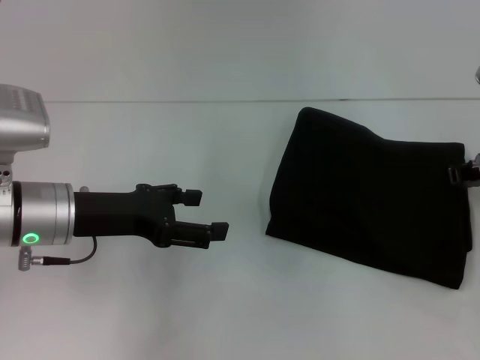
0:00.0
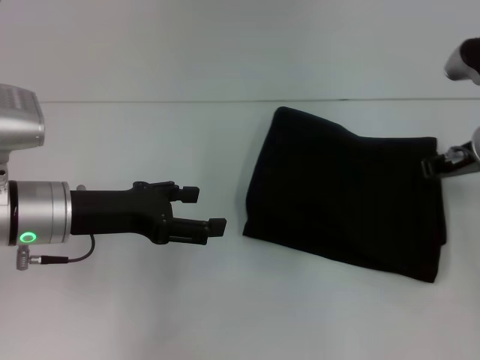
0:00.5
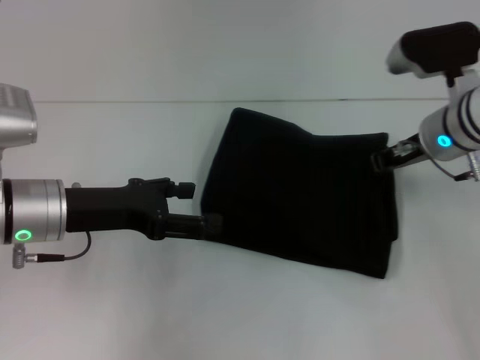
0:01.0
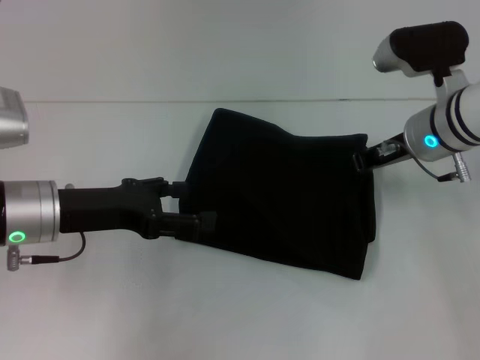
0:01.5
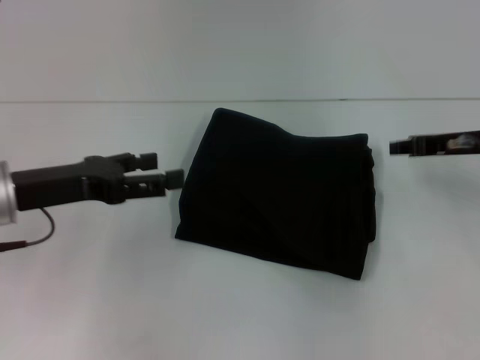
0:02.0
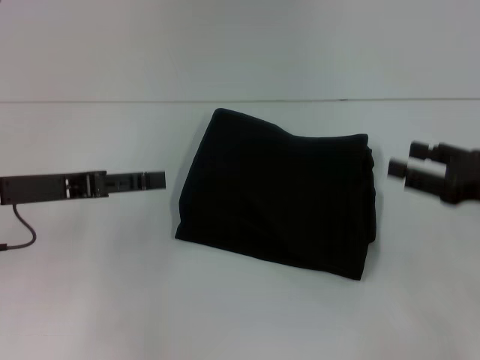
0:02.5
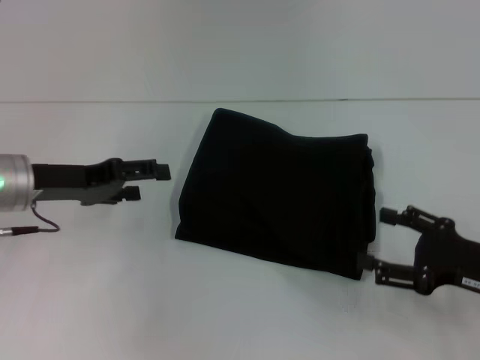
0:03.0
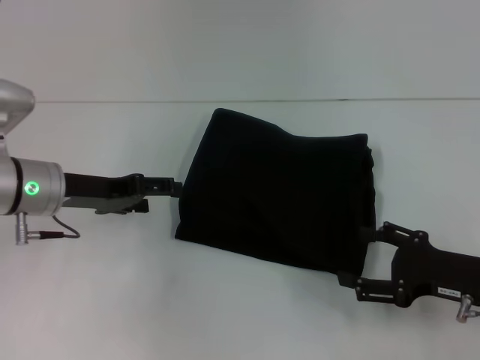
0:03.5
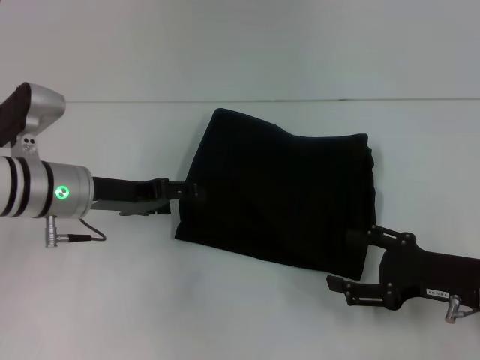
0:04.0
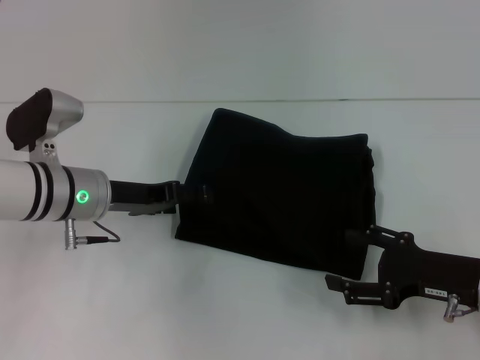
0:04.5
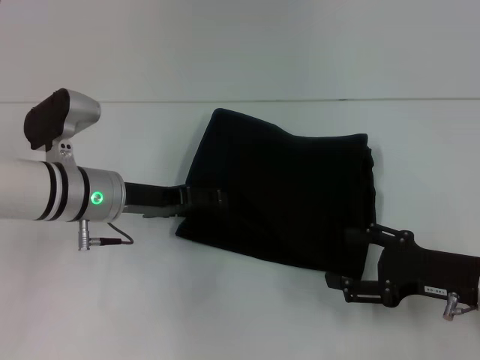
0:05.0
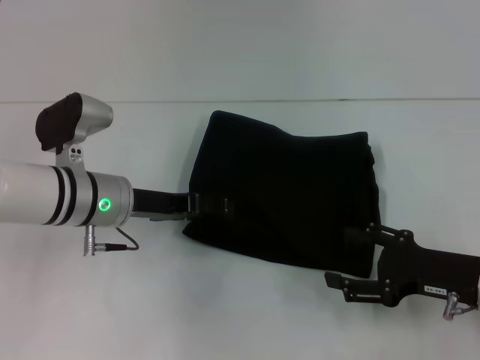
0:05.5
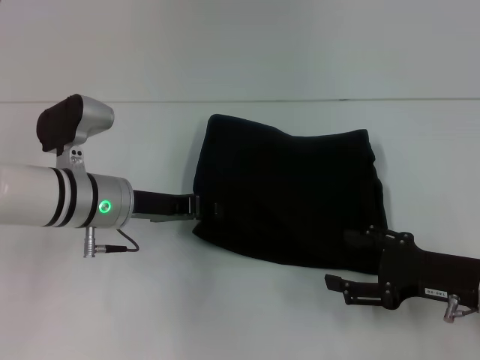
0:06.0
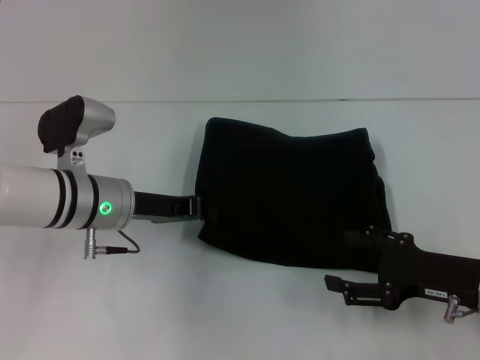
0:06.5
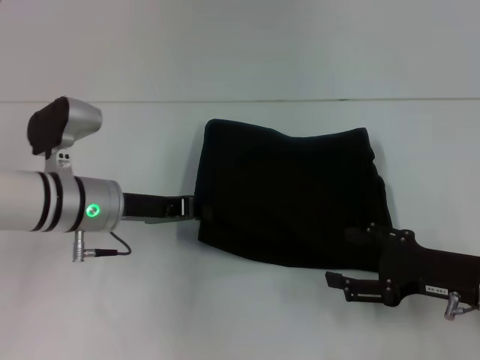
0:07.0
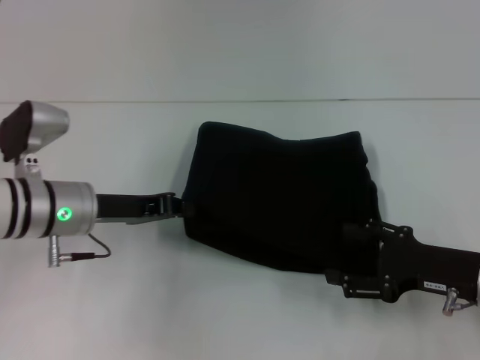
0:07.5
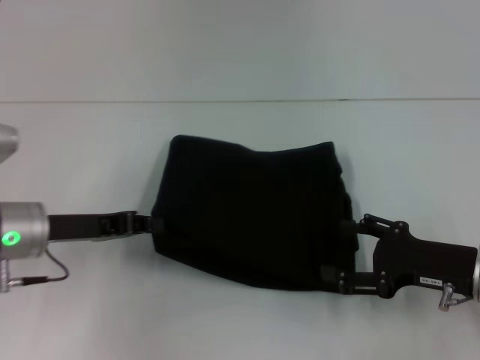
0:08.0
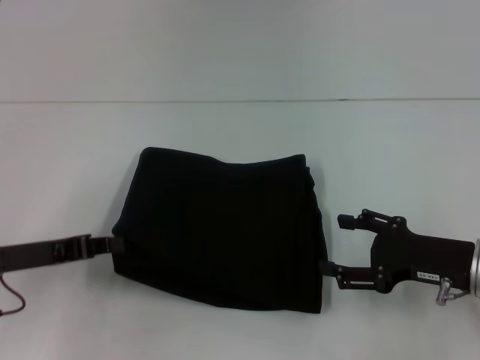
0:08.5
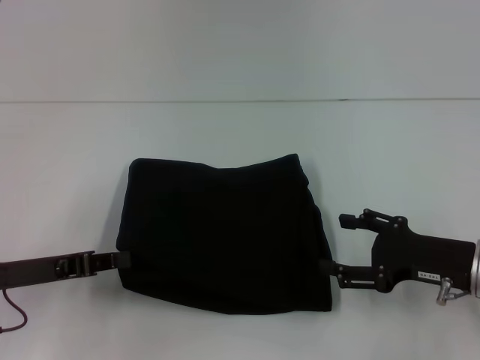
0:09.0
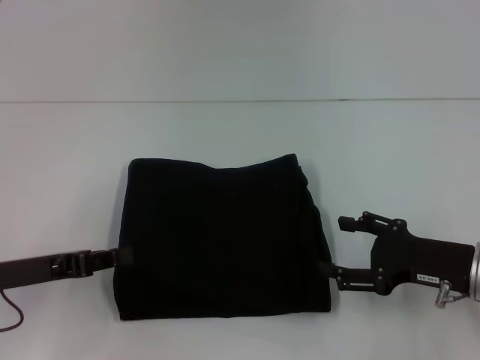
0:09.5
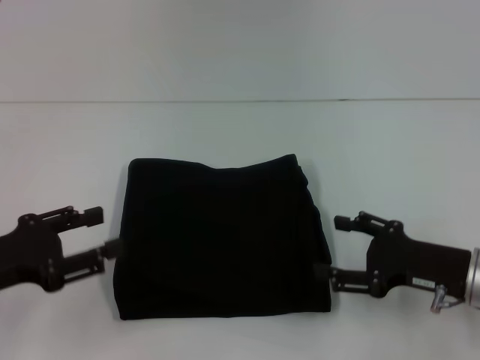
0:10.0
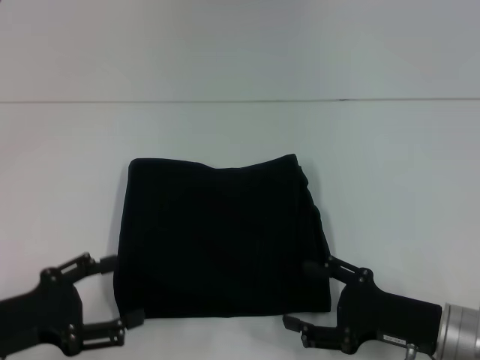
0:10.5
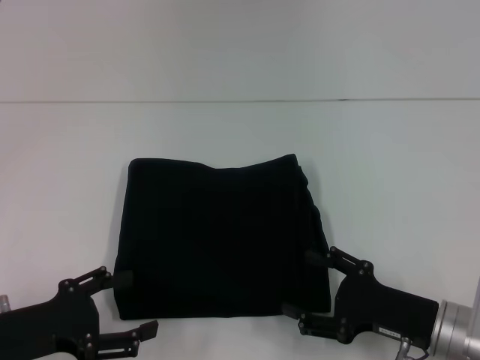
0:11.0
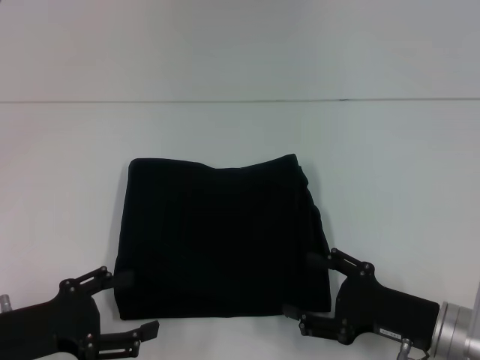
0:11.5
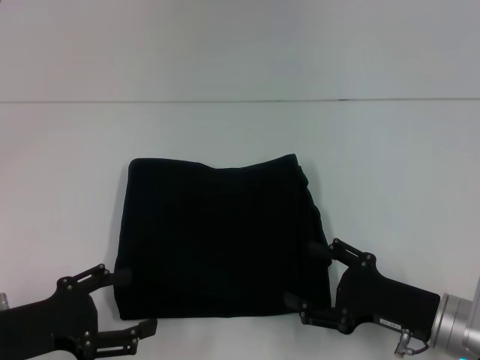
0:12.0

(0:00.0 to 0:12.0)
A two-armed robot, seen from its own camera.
0:00.0 - 0:02.0: The right gripper reaches roughly 10 cm to the left, then returns.
0:02.0 - 0:04.0: The right gripper heads backward and downward, covering roughly 15 cm, and opens its fingers, while the left gripper shifts about 5 cm forward.
0:04.0 - 0:06.0: The left gripper closes up.
0:06.0 - 0:08.0: The left gripper goes roughly 10 cm to the left, and closes up.
0:08.0 - 0:10.0: The left gripper is displaced backward and to the left by about 10 cm, and opens.
0:10.0 - 0:12.0: The left gripper changes place by some 5 cm, and opens. Meanwhile the right gripper moves some 5 cm.

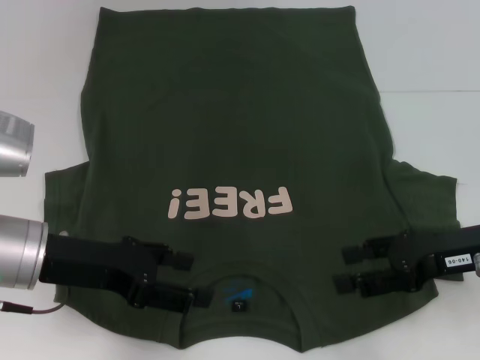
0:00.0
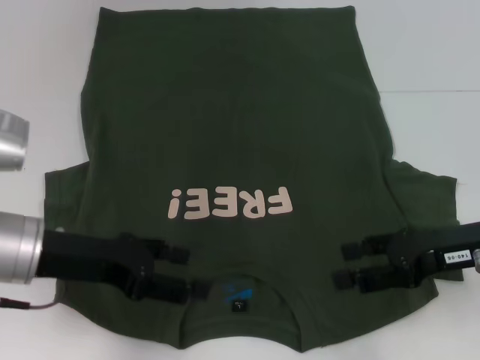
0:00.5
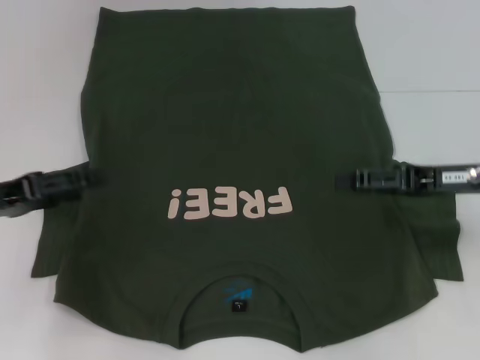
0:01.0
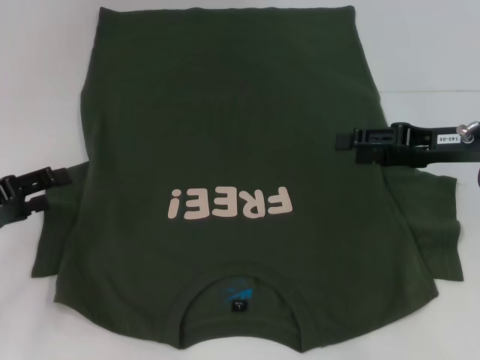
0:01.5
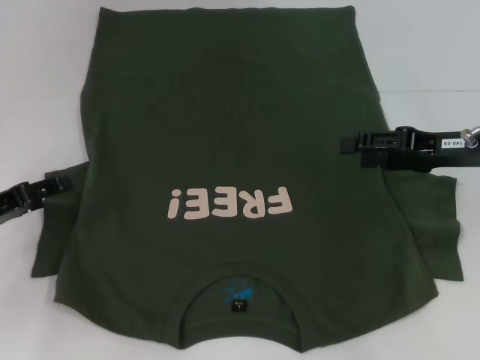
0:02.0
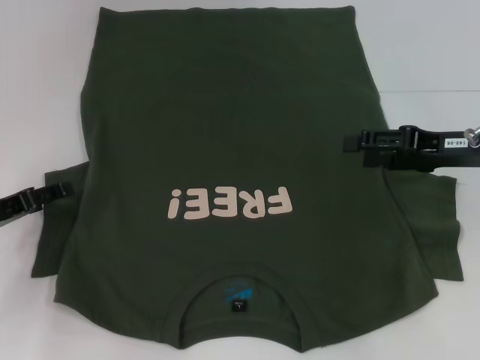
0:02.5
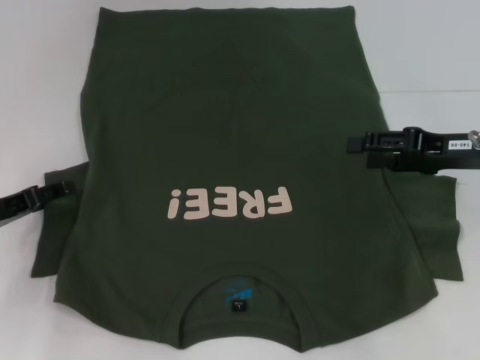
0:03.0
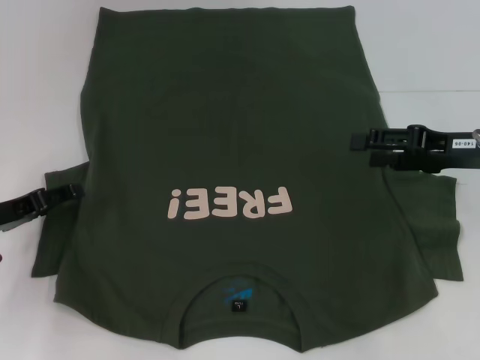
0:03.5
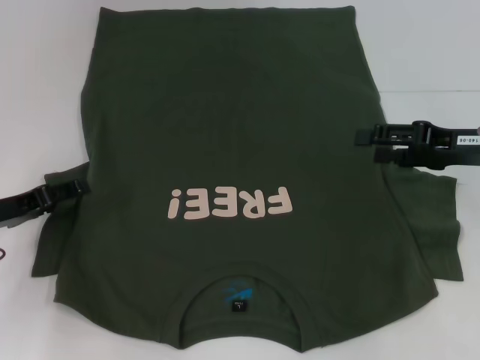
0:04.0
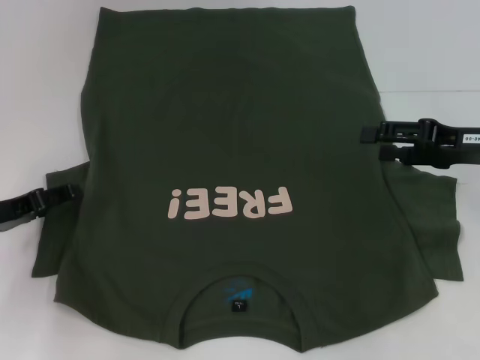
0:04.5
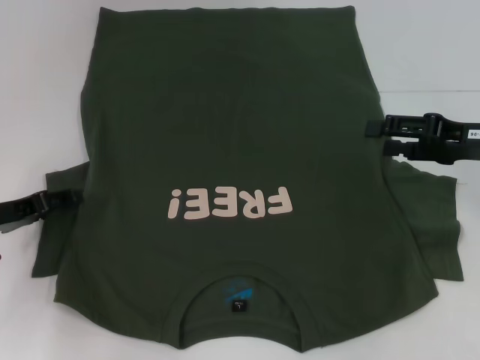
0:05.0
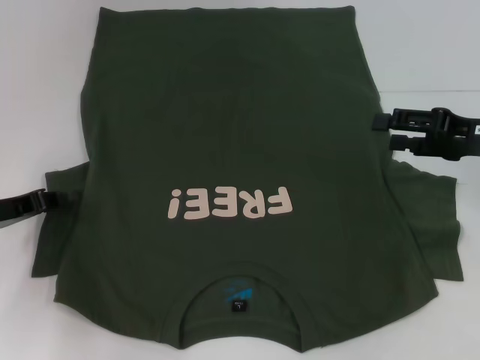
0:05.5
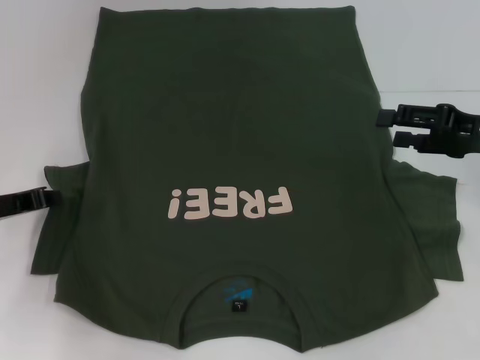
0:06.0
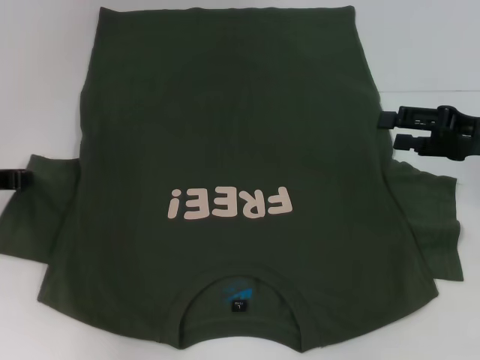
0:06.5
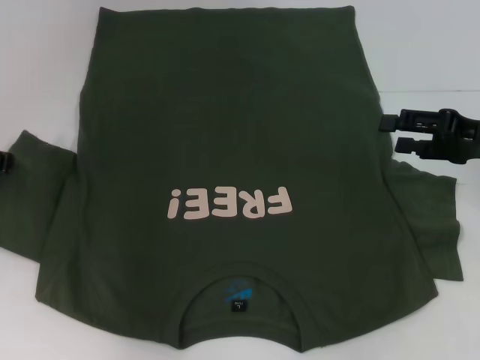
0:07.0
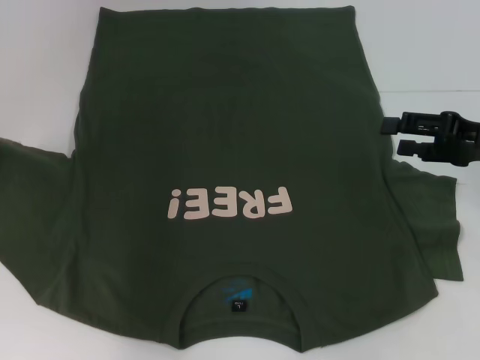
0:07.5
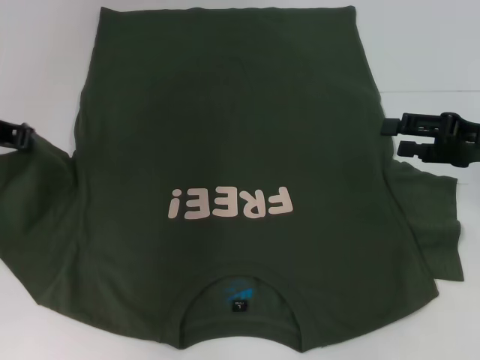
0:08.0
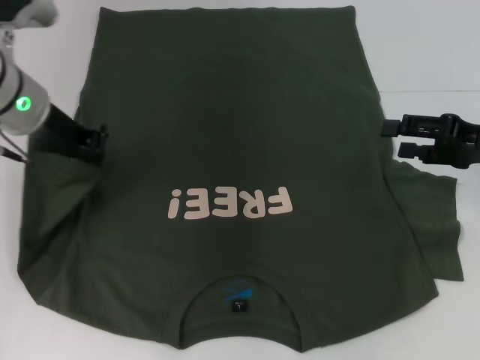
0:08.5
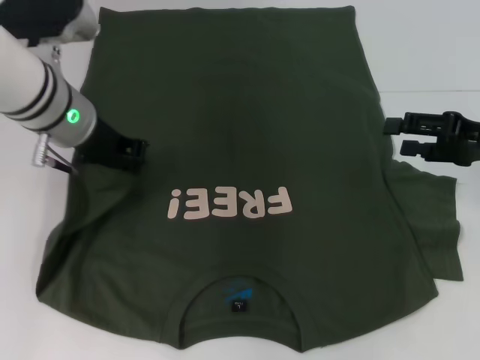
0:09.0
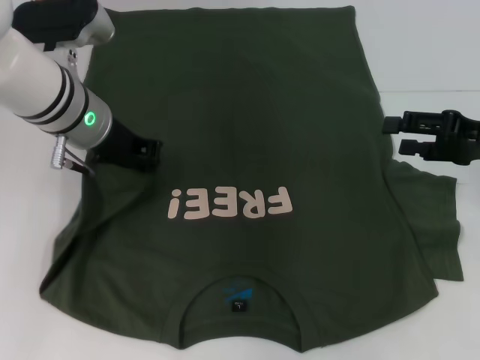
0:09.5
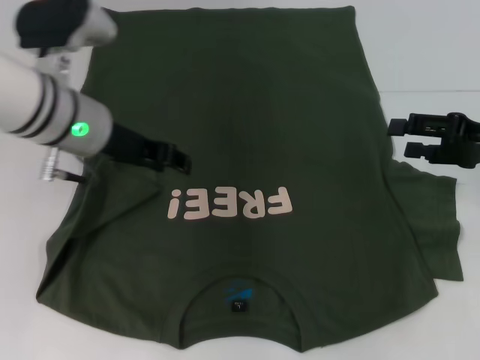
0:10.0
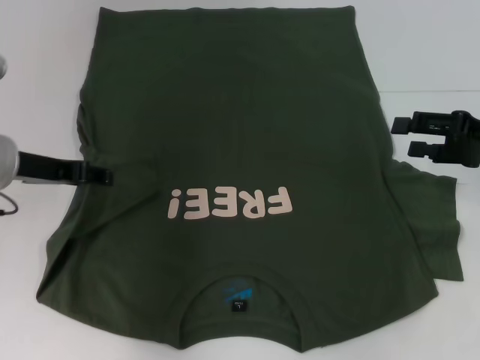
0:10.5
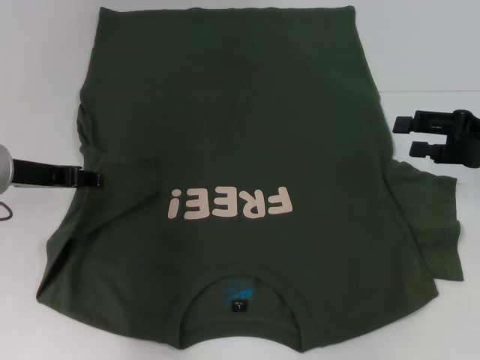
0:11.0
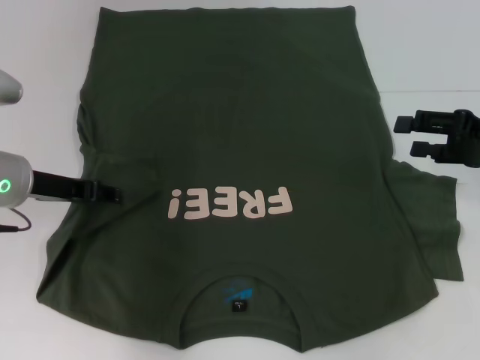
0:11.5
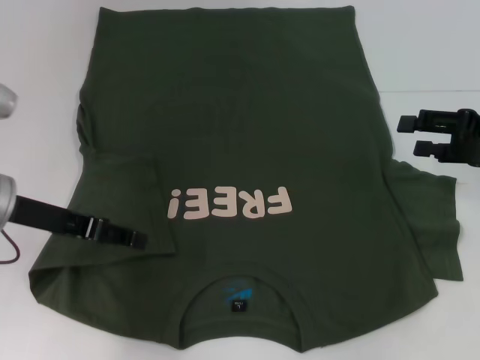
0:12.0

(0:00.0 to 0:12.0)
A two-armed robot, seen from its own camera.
Step, 0:00.0 - 0:12.0: Fold the bottom left sleeve with your left hand.
0:00.0 - 0:02.0: The left gripper shifts some 10 cm to the left and downward; the right gripper shifts roughly 5 cm forward.
0:02.0 - 0:04.0: The grippers stay close to where they were, moving slightly.
0:04.0 - 0:06.0: The left gripper closes up.
0:06.0 - 0:08.0: The left gripper goes about 15 cm upward and forward.
0:08.0 - 0:10.0: The left gripper moves to the right, approximately 10 cm, and opens its fingers.
0:10.0 - 0:12.0: The left gripper travels to the left and backward by some 10 cm.

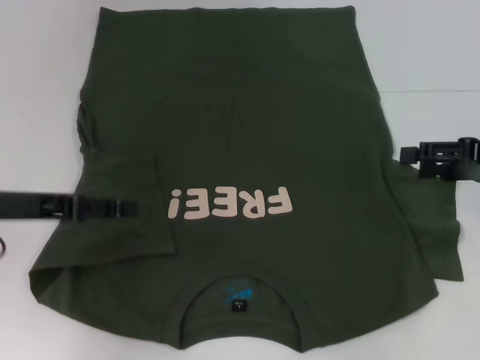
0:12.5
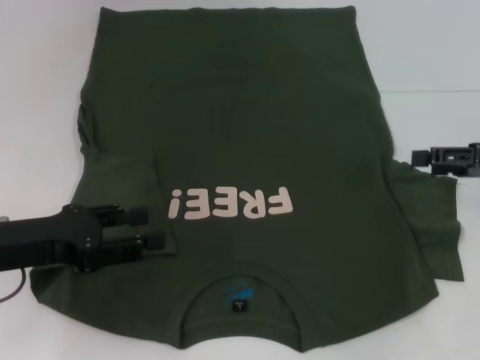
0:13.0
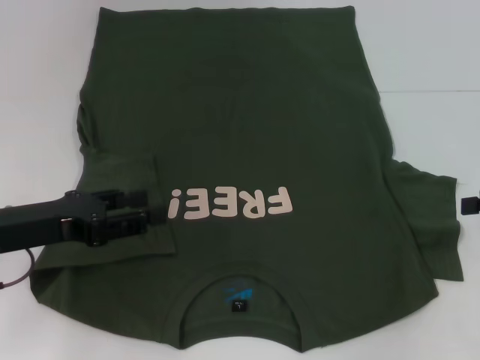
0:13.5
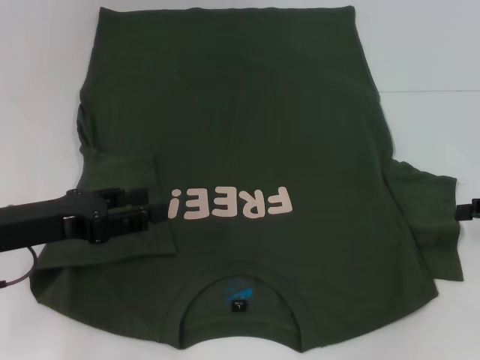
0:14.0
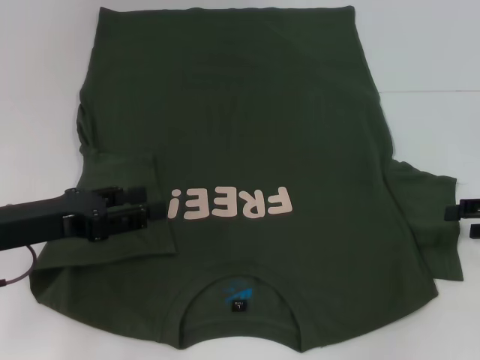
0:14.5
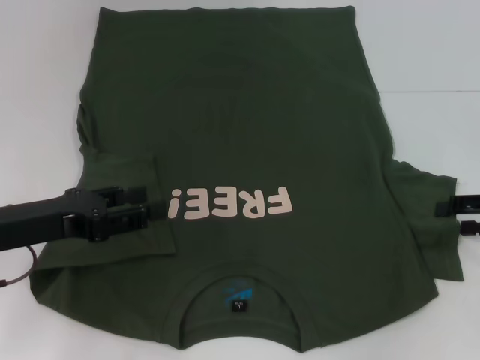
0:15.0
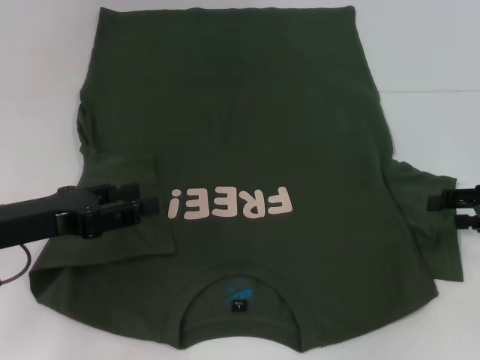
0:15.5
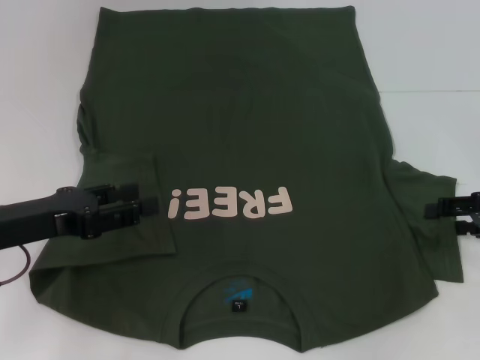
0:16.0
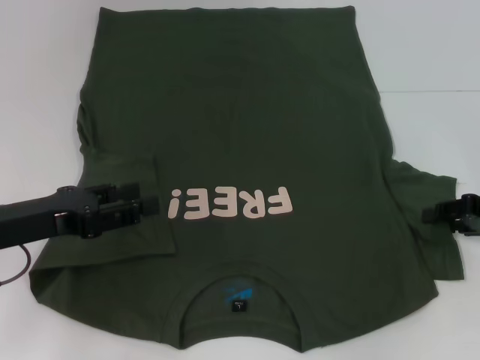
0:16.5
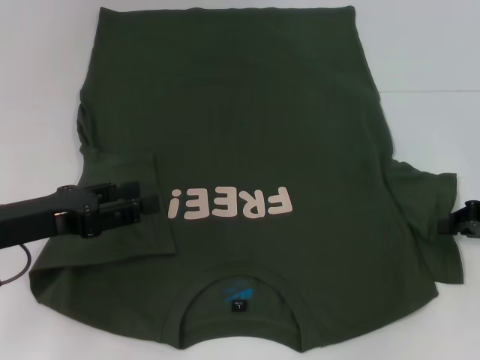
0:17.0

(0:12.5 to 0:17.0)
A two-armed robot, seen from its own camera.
0:12.5 - 0:14.5: The right gripper moves about 5 cm.
0:14.5 - 0:17.0: The right gripper closes.
